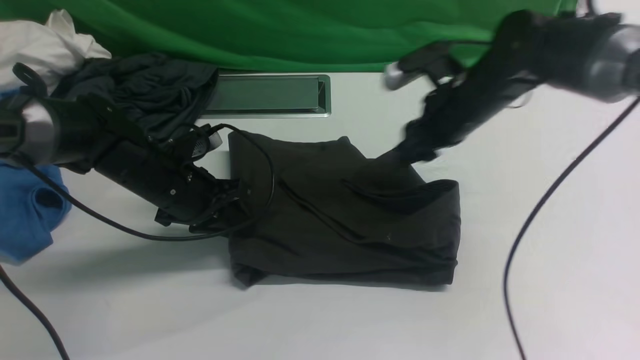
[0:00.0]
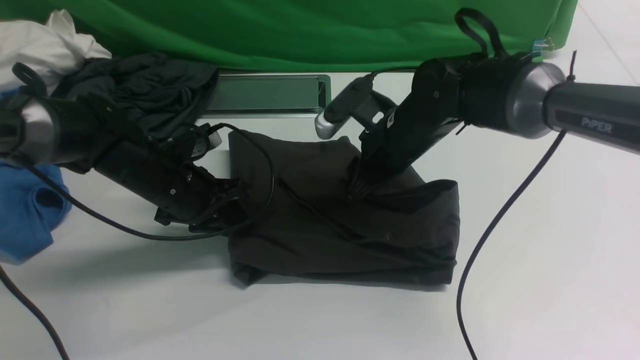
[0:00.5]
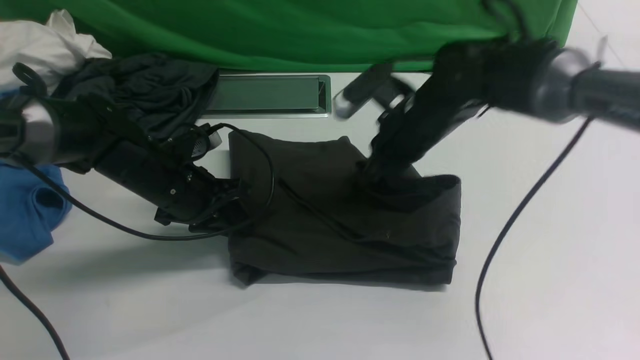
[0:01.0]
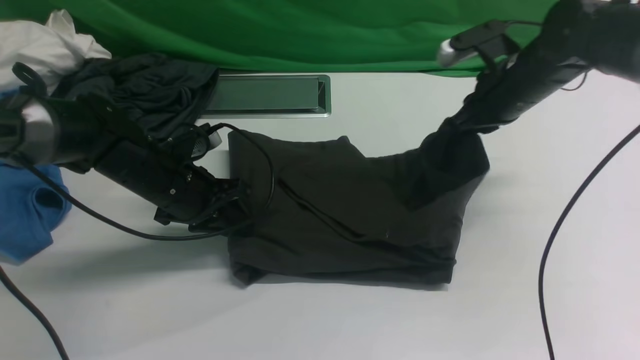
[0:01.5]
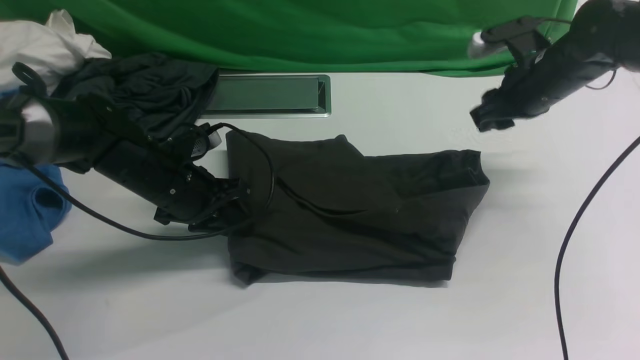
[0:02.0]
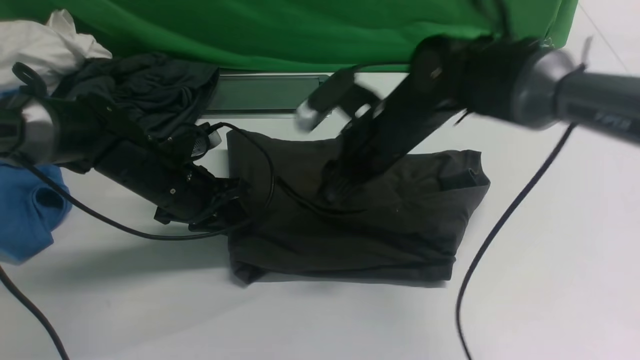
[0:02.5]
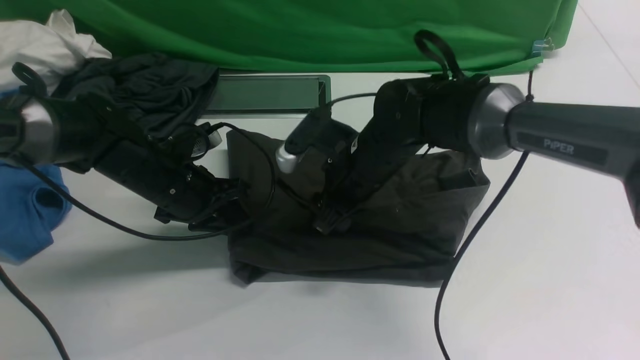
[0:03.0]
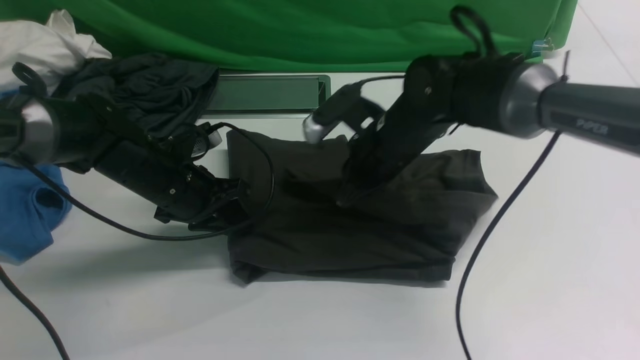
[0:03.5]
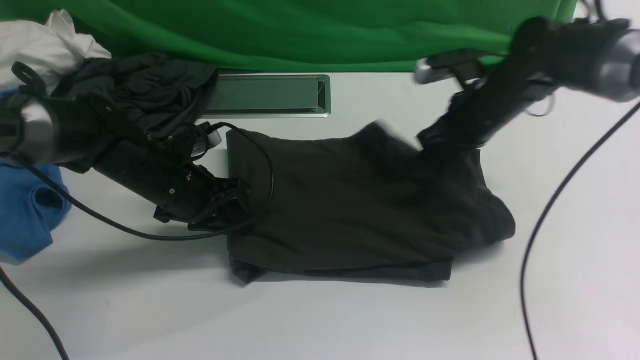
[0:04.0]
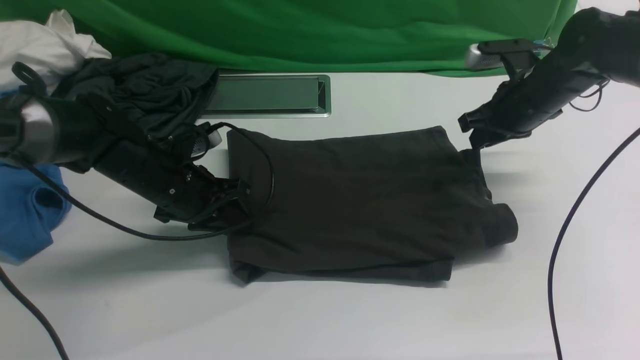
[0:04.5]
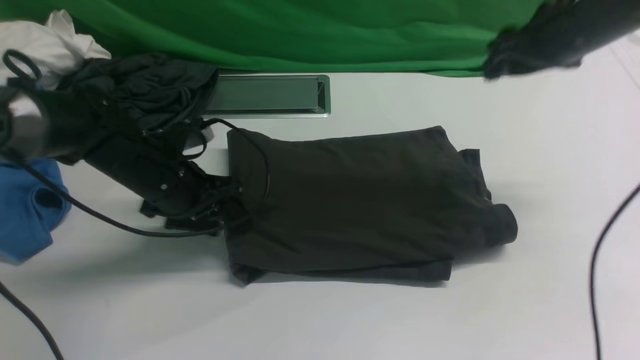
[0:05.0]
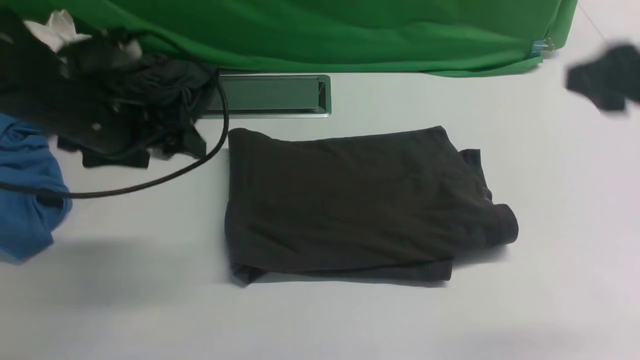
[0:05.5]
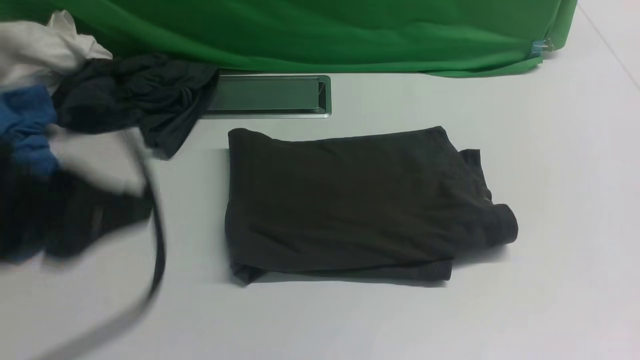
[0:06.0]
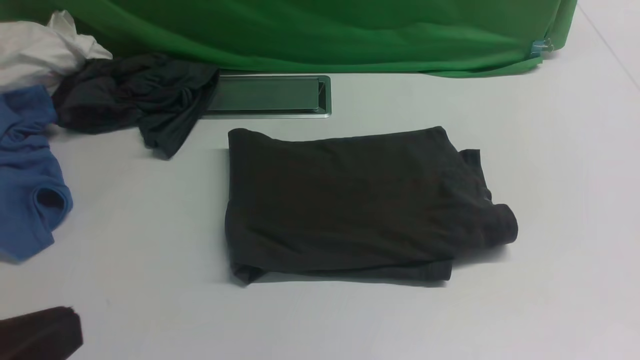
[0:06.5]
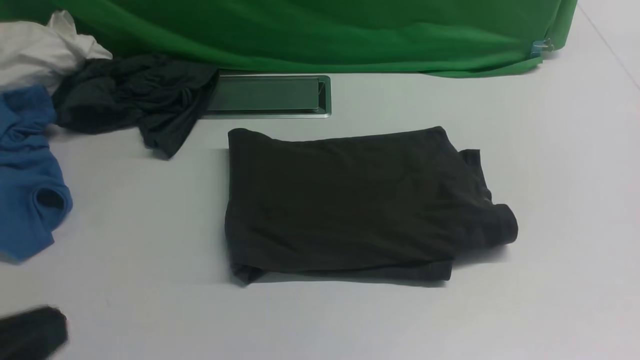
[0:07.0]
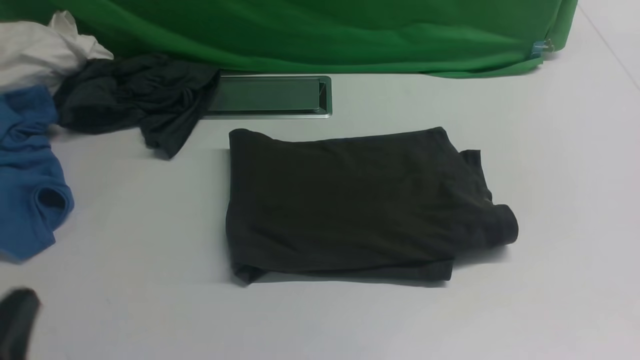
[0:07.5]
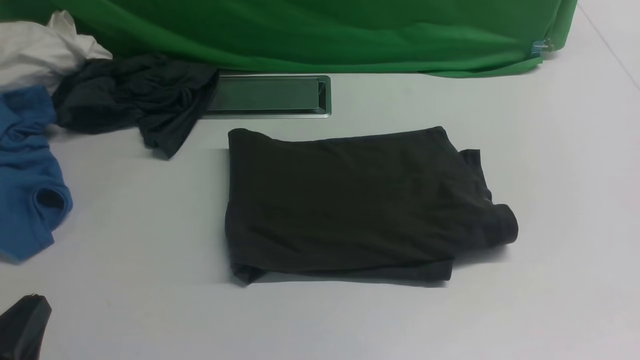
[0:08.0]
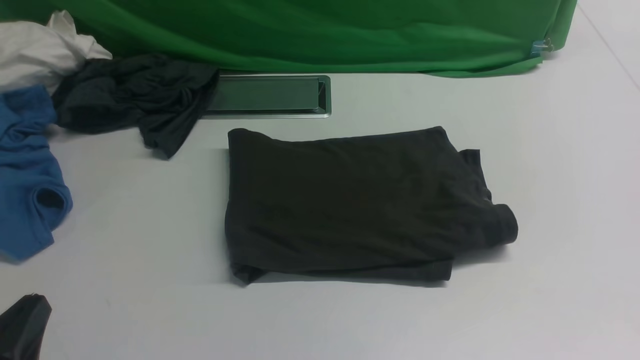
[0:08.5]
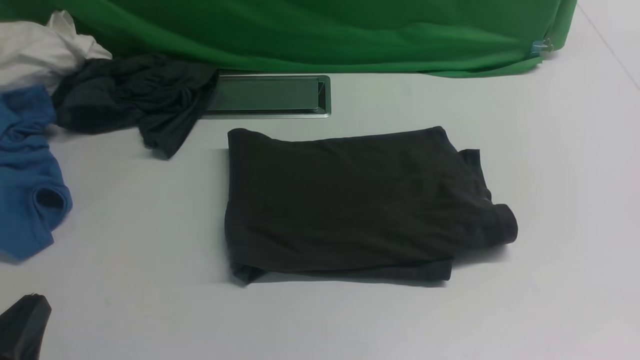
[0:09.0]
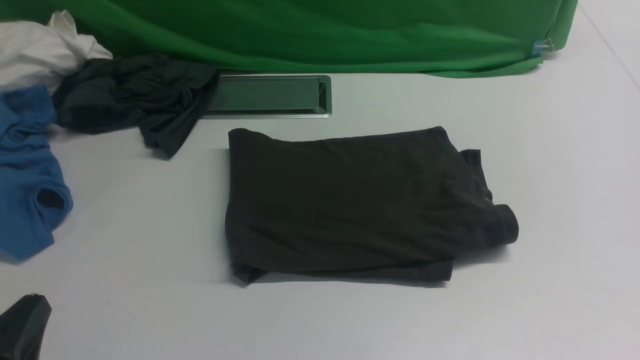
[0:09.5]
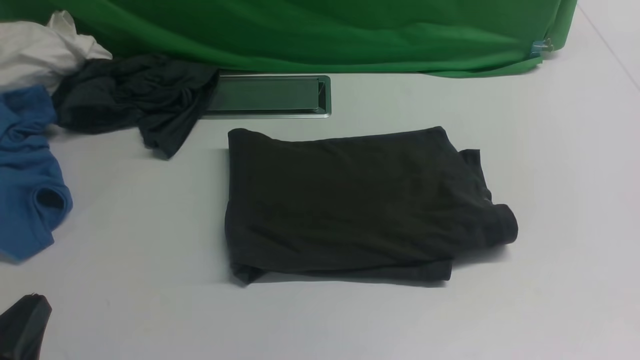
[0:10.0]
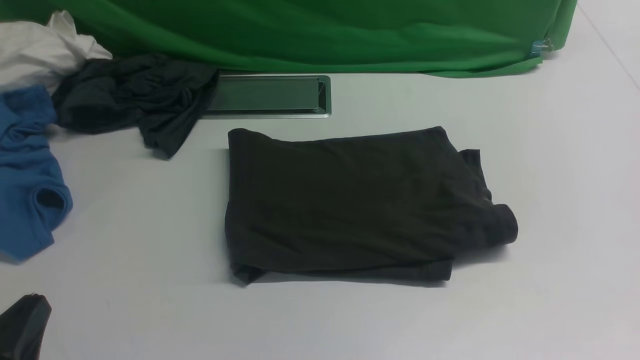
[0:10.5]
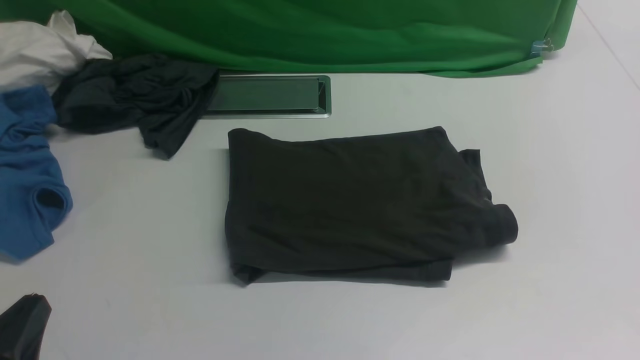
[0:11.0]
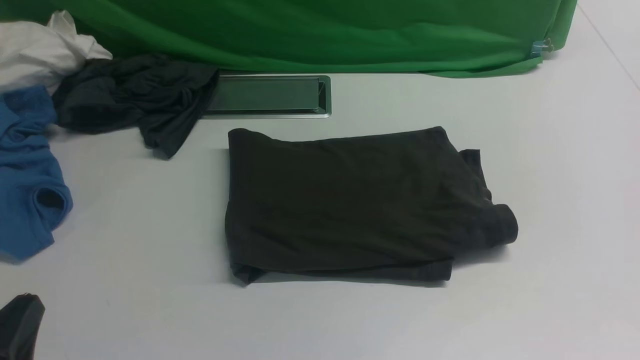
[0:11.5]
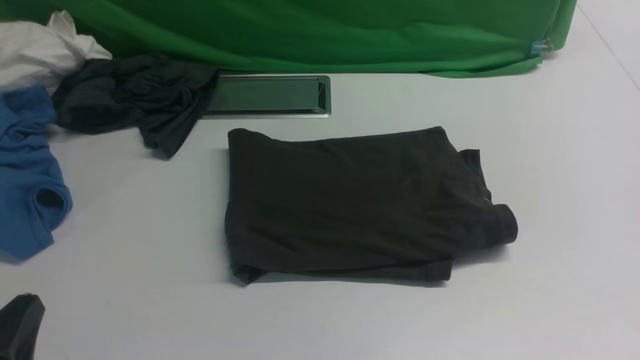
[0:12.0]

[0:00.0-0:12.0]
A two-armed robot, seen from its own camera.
0:00.0 to 0:02.0: The right gripper heads to the right, covering about 10 cm, and closes and opens again.
0:02.0 to 0:04.0: The right gripper travels to the left and back again, roughly 20 cm each way, and closes.
0:04.0 to 0:06.0: The left gripper is displaced backward and upward by some 30 cm, and opens and closes again. The right gripper shifts approximately 35 cm backward, and opens, then closes once more.
0:06.0 to 0:08.0: The left gripper shifts about 20 cm downward and backward, and closes.
0:10.0 to 0:12.0: Both grippers stay about where they are.
